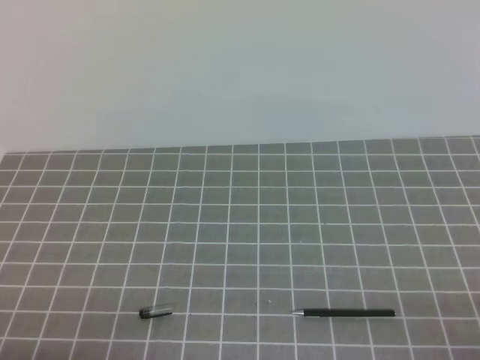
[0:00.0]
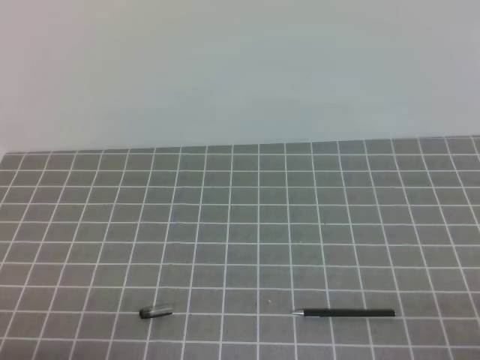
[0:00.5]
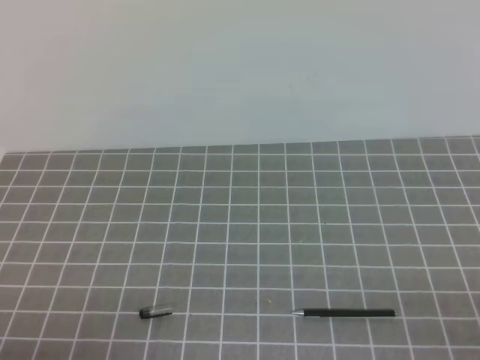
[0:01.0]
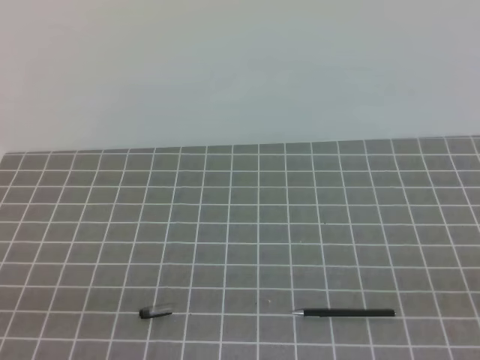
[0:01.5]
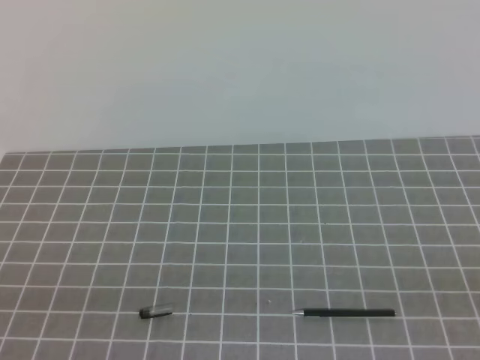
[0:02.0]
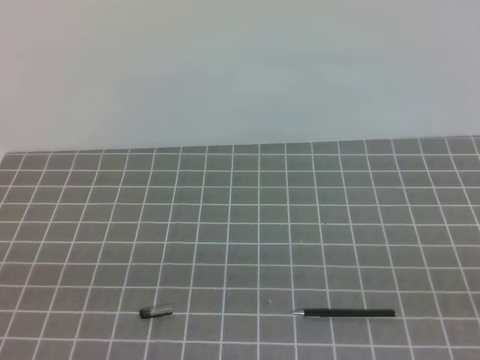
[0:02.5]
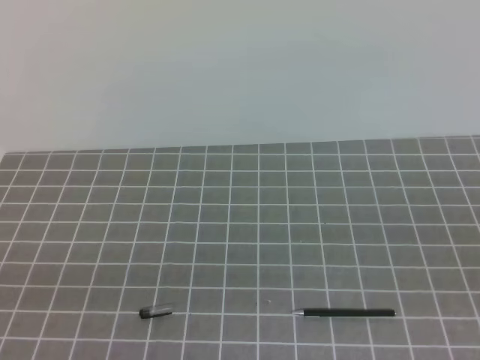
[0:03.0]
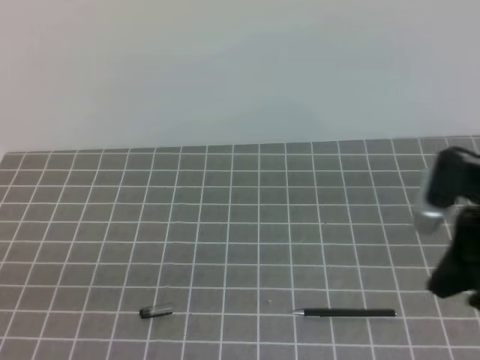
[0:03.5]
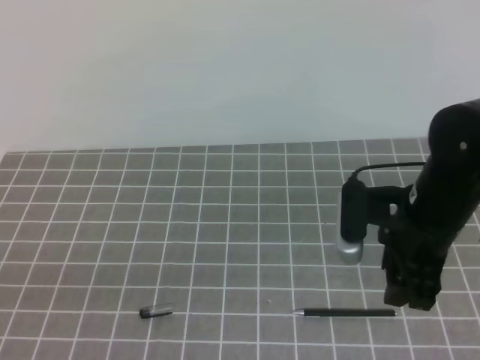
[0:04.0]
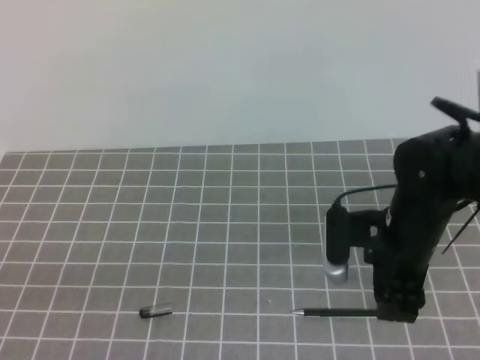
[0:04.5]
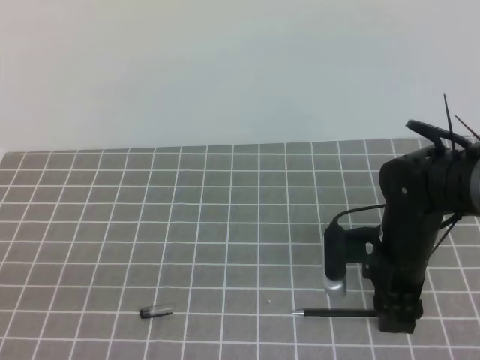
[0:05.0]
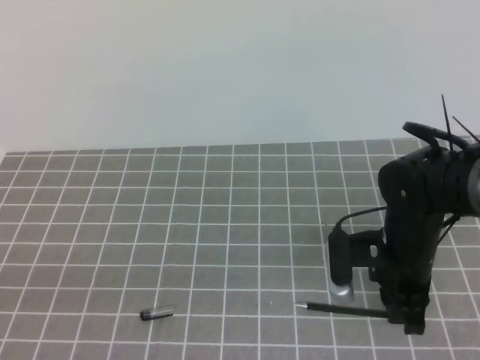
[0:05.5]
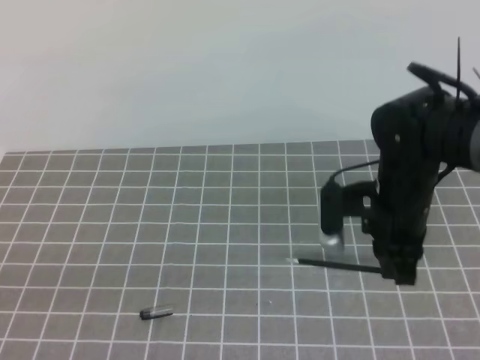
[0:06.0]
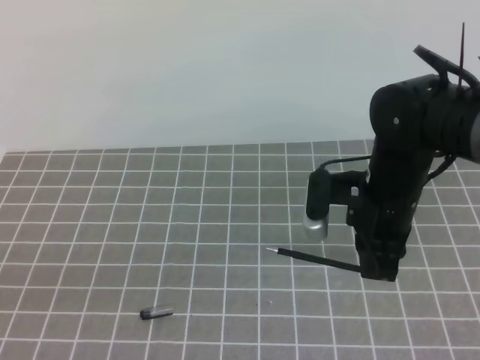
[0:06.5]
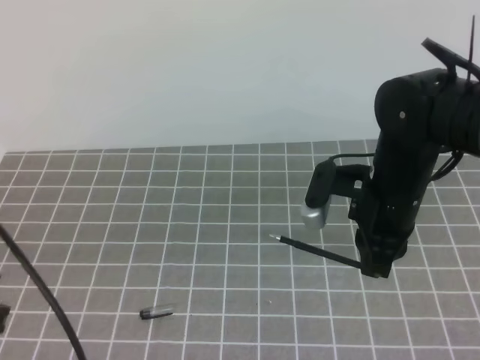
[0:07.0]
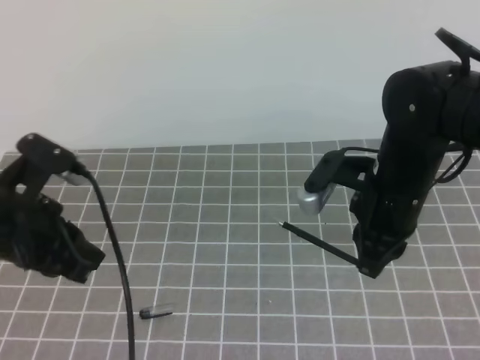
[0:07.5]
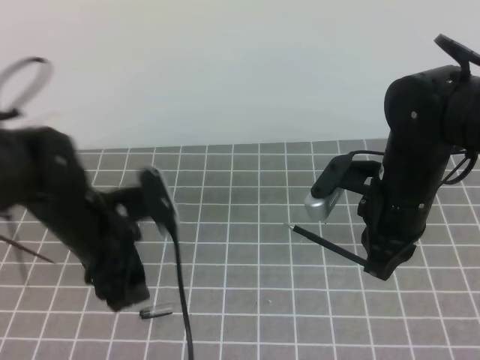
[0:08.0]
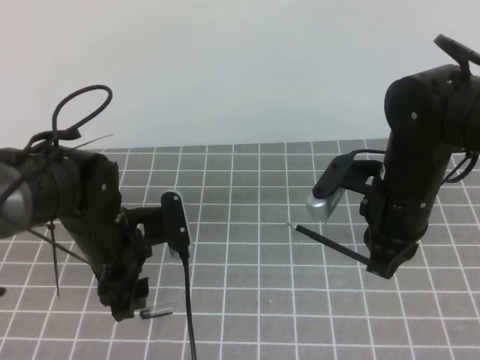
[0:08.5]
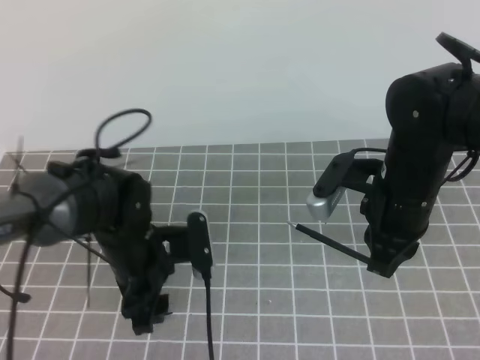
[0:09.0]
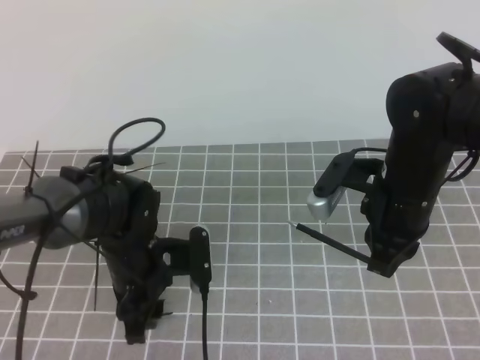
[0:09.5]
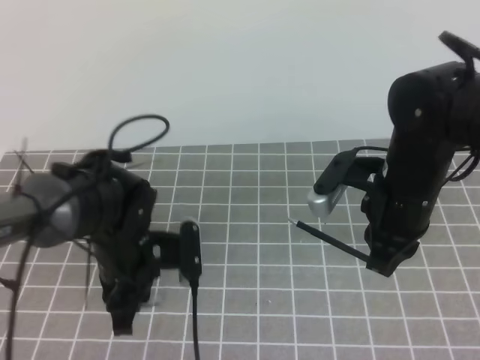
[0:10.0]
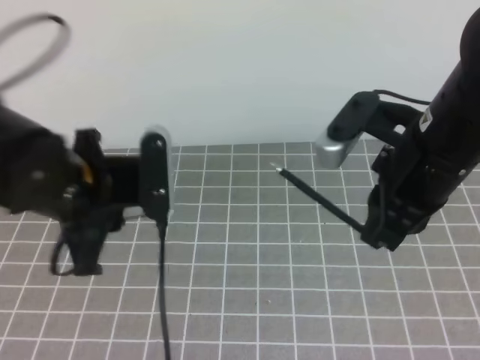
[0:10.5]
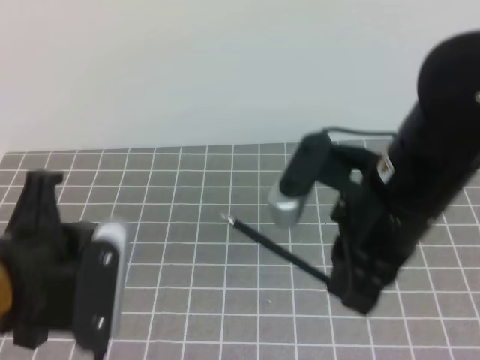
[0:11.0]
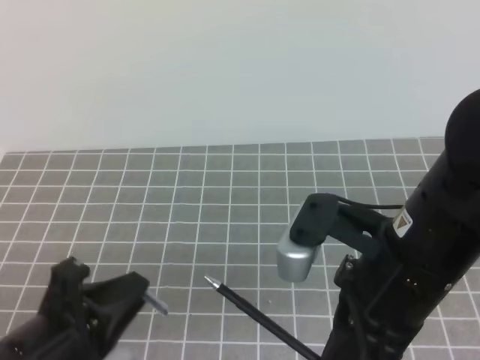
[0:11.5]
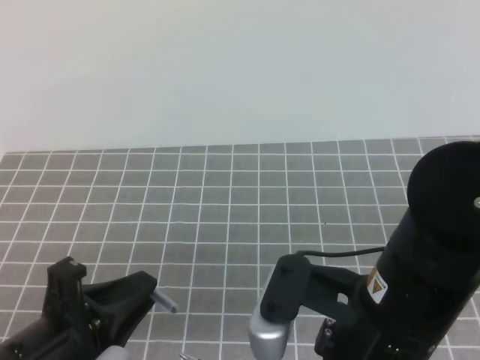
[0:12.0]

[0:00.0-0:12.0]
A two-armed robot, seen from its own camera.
Task of the whole recording: on the grey tablecloth, hold the pen cap in one hand and the pen in the other, then cover the pen cap.
0:02.0 to 0:04.0: The right gripper goes approximately 30 cm forward and to the left, and opens up.
0:04.0 to 0:06.0: The right gripper closes up.
0:06.0 to 0:08.0: The left gripper is displaced forward and to the right by approximately 25 cm, and opens up.
0:08.0 to 0:10.0: The left gripper goes roughly 5 cm downward, and closes its fingers.
0:10.0 to 0:12.0: Both grippers move backward, approximately 15 cm.

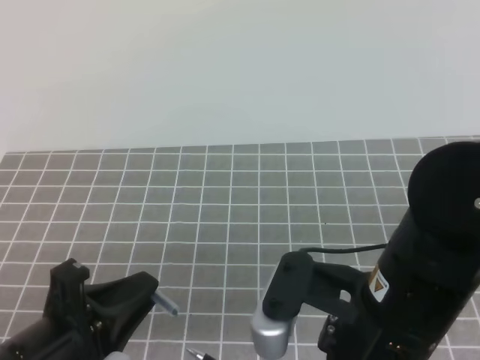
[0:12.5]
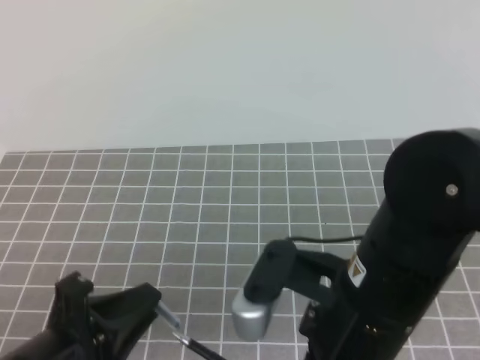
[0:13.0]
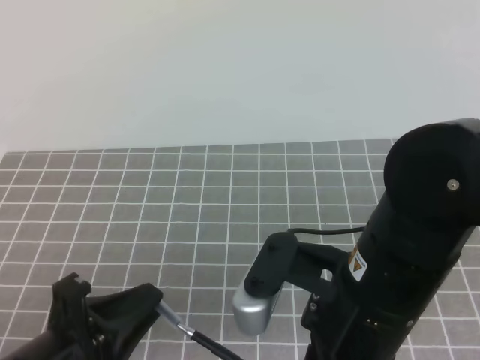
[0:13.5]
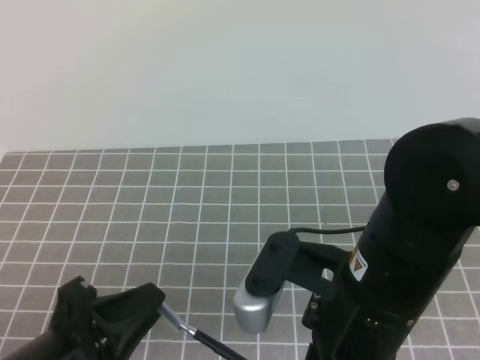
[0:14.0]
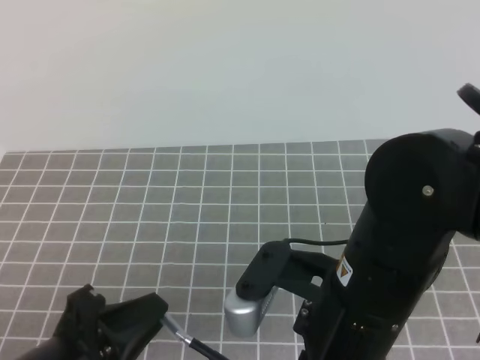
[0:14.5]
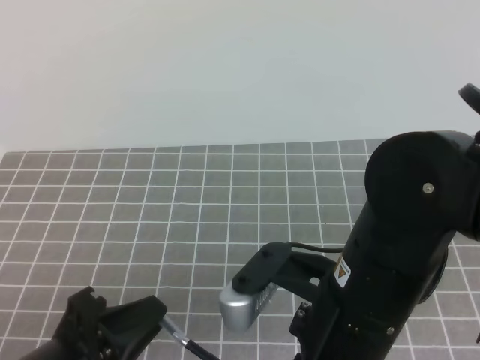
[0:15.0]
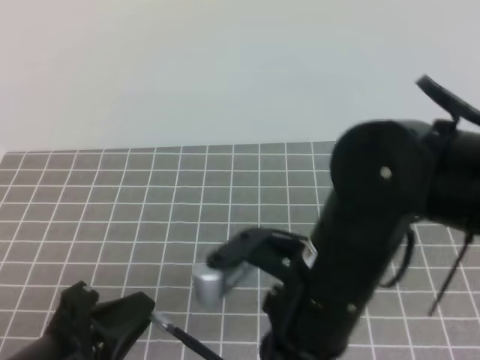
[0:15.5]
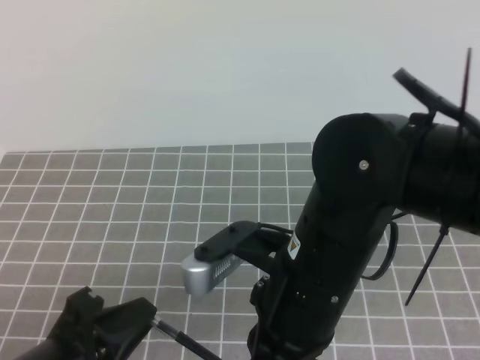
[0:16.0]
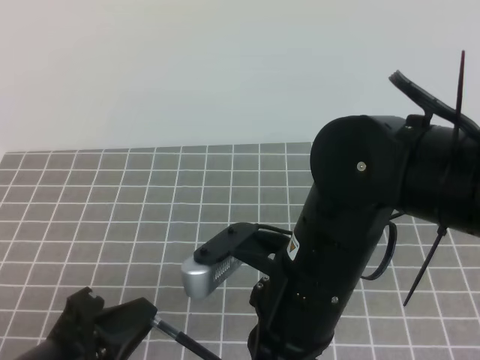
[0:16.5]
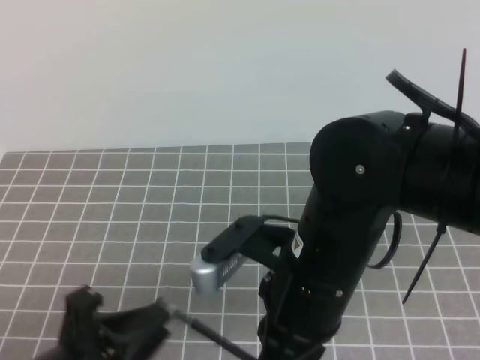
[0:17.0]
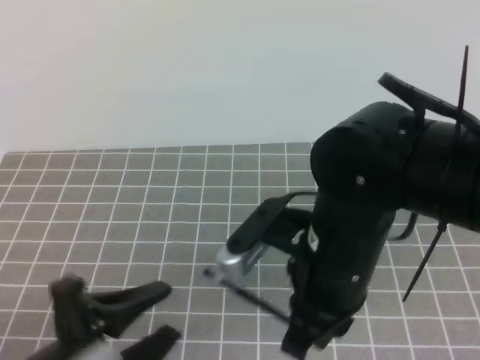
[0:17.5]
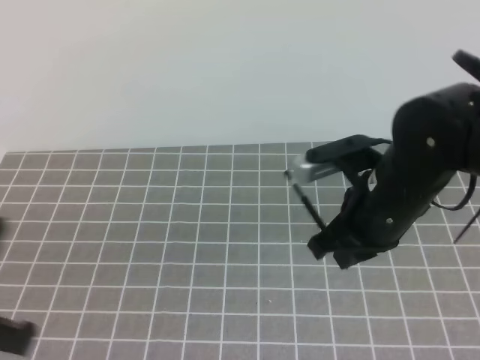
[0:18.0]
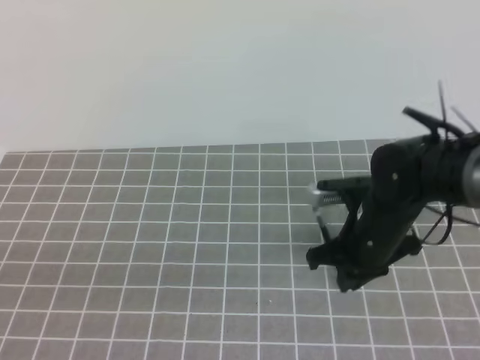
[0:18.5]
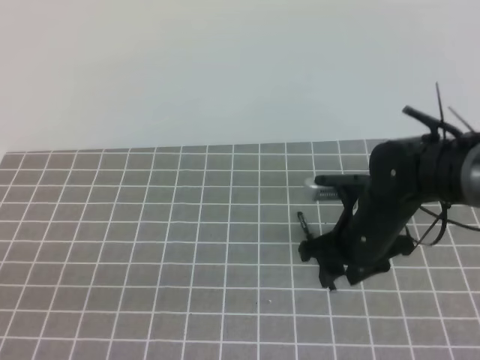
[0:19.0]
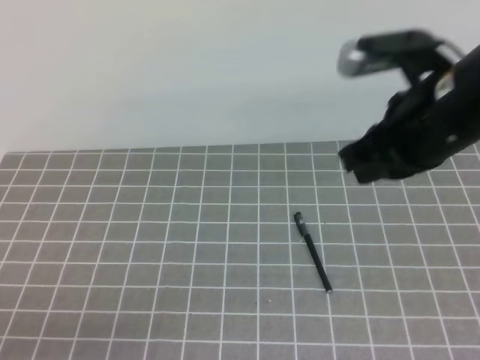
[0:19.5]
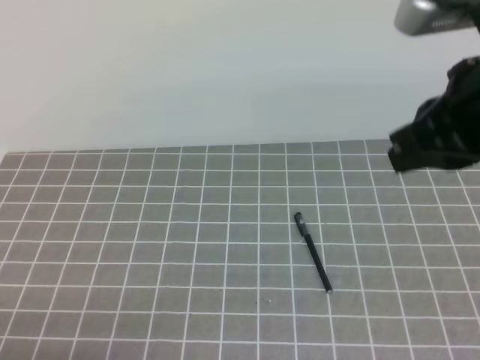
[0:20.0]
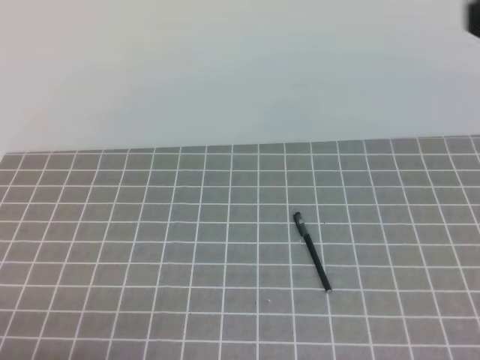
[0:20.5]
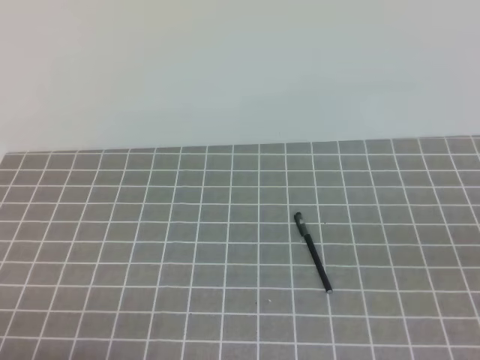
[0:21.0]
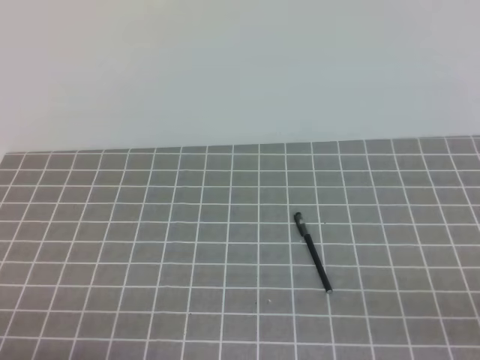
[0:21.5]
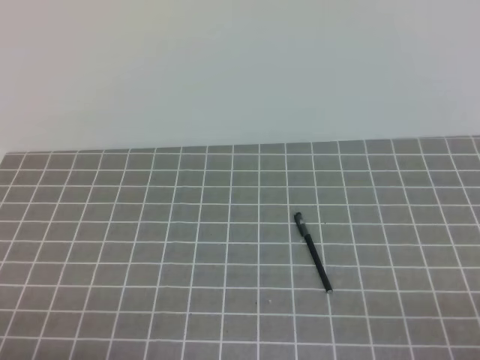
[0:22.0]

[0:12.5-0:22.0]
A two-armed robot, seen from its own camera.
Task of the whole recording: on the grey tablecloth, hold the pen cap in one hand and the pen in the other, then cover the pen cap.
Step, 0:12.5 to 0:22.0: Put the cap on the pen.
0:12.5 to 0:14.5: The grippers move only a little.
0:16.5 to 0:18.0: The left gripper heads to the left, covering about 5 cm, and opens, then closes once more, while the right gripper moves forward and to the right, approximately 15 cm.
0:18.0 to 0:20.0: The right gripper heads upward, covering about 15 cm, and opens, then closes once more, while the left gripper goes roughly 10 cm downward and backward.
0:20.0 to 0:22.0: The right gripper heads downward, backward and to the right, covering about 35 cm.
